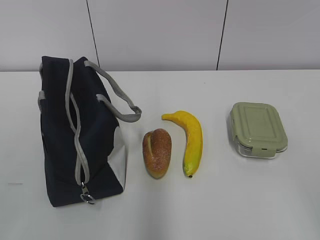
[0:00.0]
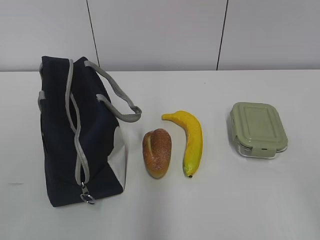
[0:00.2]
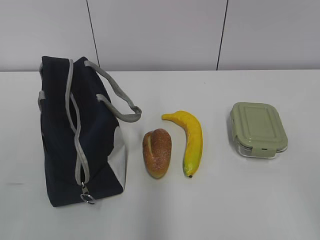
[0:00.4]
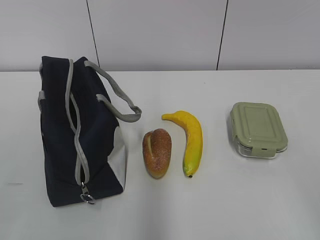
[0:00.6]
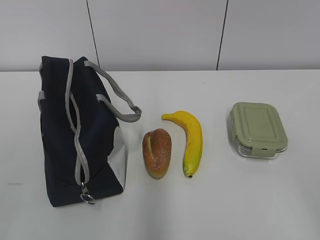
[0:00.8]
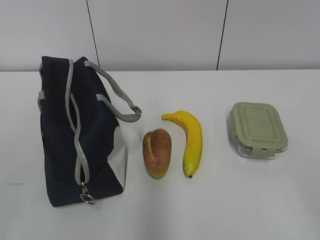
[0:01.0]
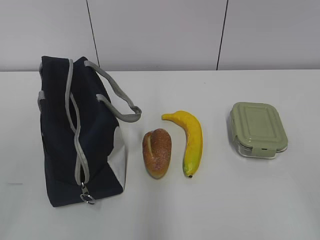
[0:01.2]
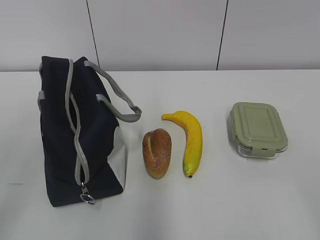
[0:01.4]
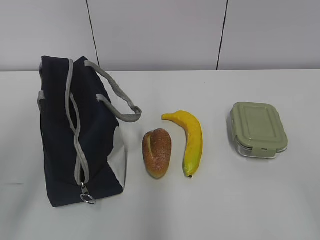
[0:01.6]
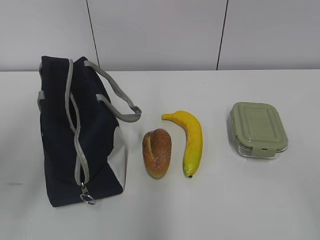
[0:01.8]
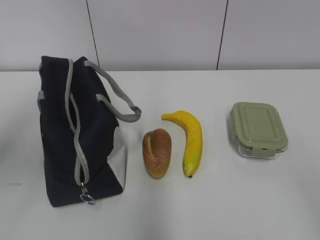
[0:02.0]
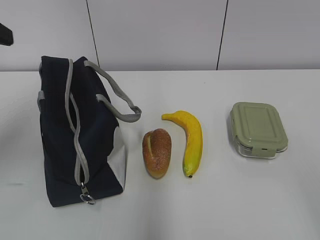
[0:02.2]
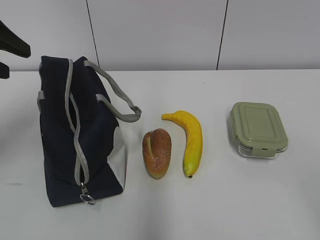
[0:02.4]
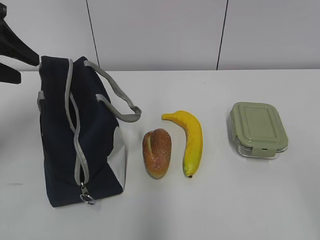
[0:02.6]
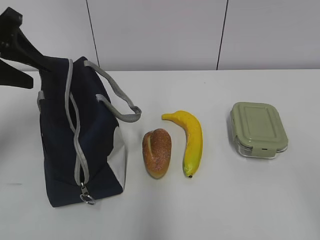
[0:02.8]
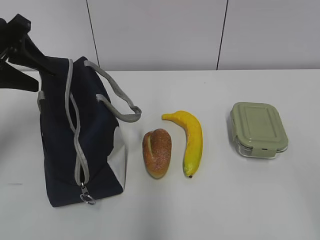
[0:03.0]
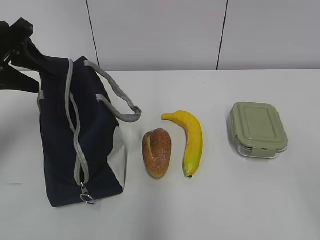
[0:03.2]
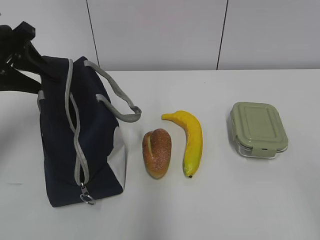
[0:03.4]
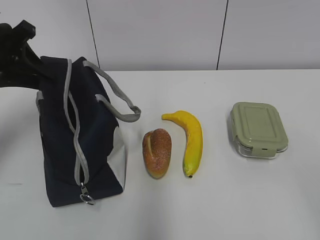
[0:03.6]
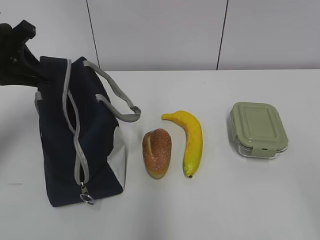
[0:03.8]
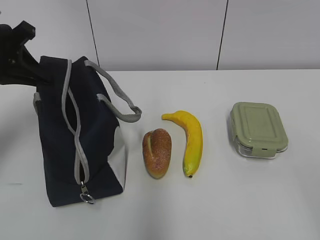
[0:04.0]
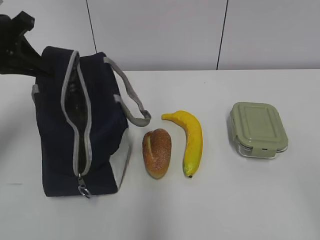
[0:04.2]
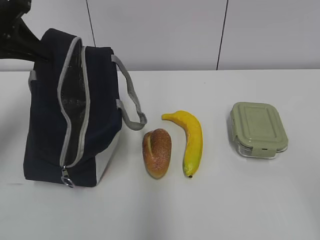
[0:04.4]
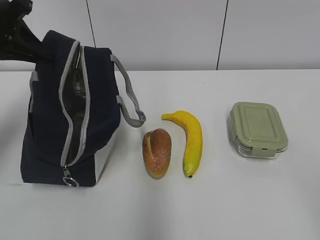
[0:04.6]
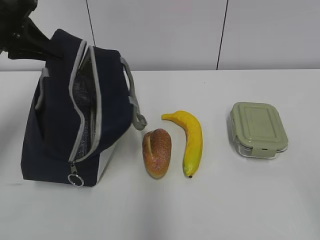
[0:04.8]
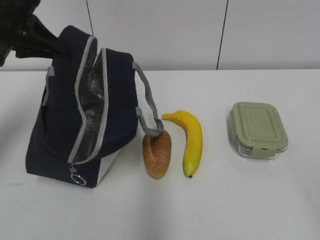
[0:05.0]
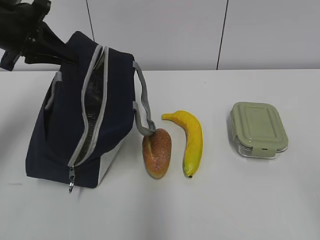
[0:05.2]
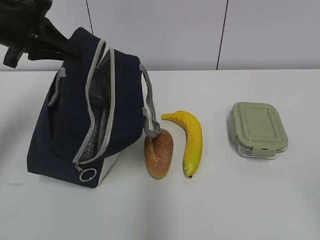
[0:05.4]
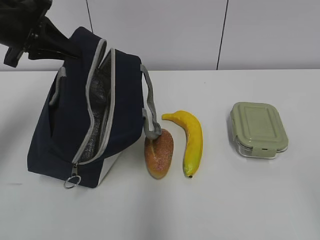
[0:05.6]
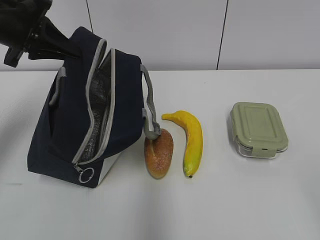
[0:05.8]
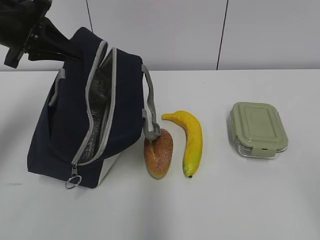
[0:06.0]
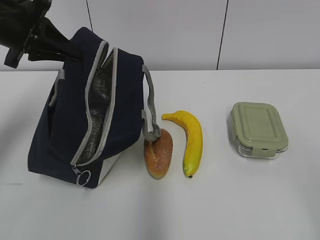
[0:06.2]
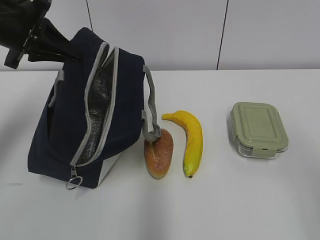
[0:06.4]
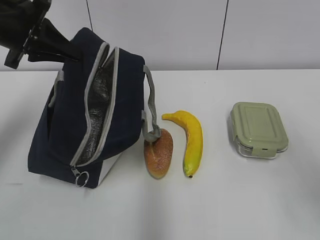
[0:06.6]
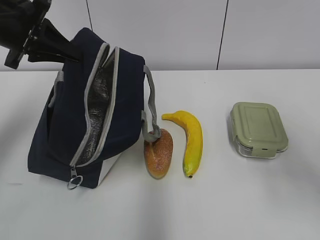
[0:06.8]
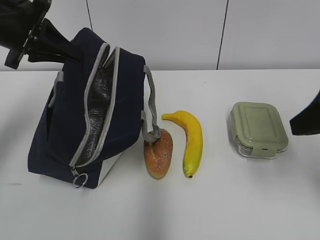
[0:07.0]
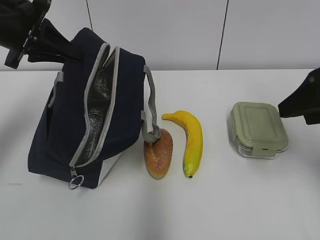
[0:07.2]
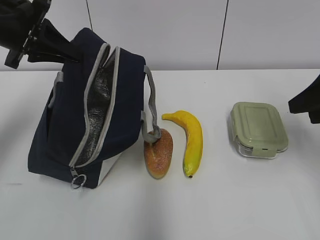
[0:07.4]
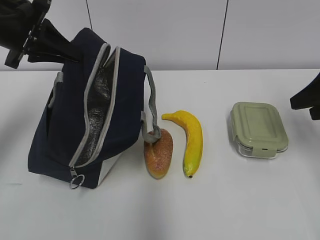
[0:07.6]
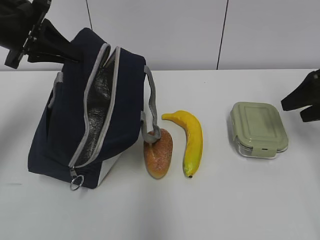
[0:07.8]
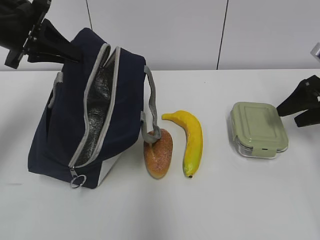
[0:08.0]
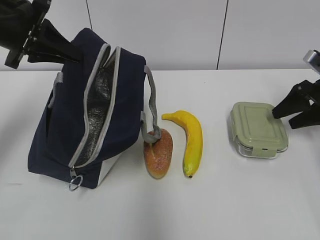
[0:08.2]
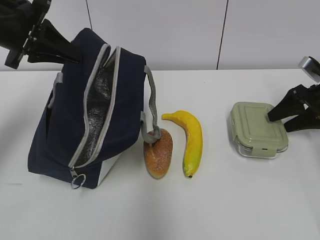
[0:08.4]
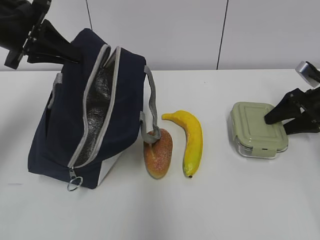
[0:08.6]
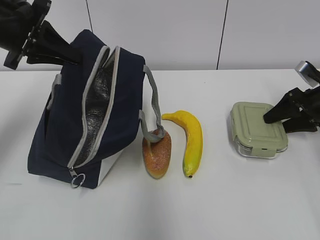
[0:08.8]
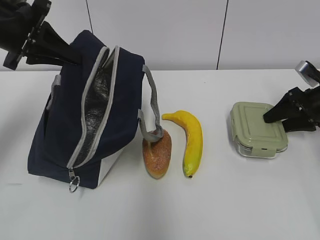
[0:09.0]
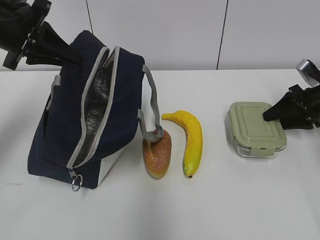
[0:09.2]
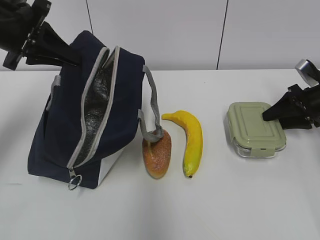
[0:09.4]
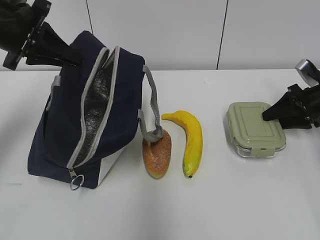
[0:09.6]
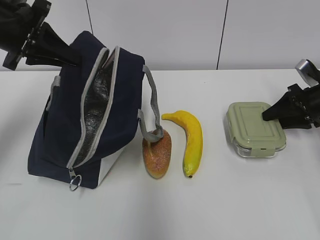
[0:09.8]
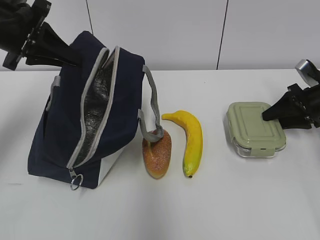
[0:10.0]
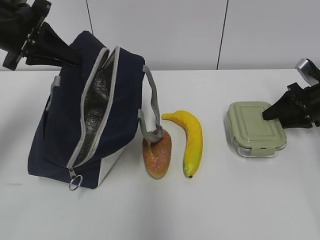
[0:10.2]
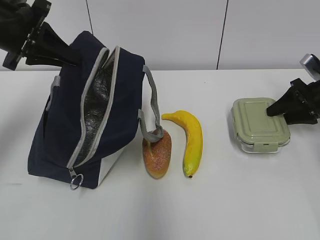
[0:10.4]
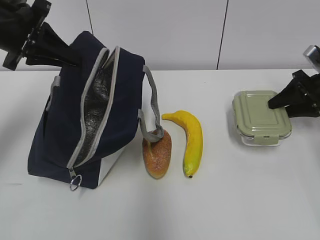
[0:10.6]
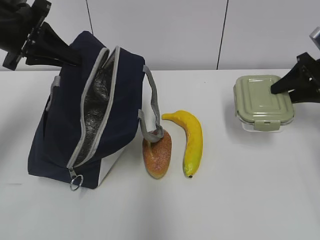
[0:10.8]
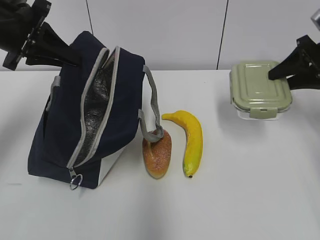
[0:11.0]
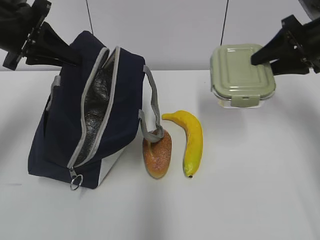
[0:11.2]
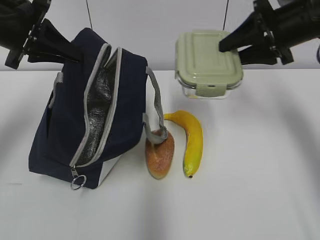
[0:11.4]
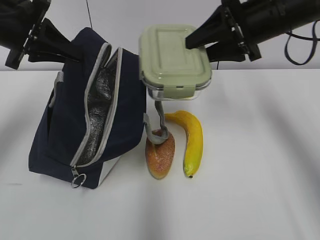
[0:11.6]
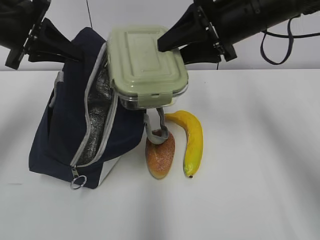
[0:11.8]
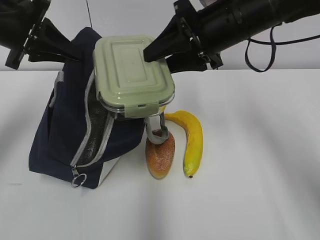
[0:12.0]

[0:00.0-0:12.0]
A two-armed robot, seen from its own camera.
0:01.6 to 0:03.0: The left gripper heads forward, covering roughly 25 cm.
0:03.0 to 0:04.4: The left gripper closes its fingers.
0:04.4 to 0:06.0: The grippers stay close to where they were, moving slightly.
0:06.0 to 0:07.6: The right gripper heads forward, covering about 30 cm.
0:07.6 to 0:09.0: The right gripper moves downward and forward, approximately 15 cm.
0:09.0 to 0:10.4: Both grippers stay about where they are.
0:10.4 to 0:12.0: The right gripper shifts some 30 cm to the left and upward.

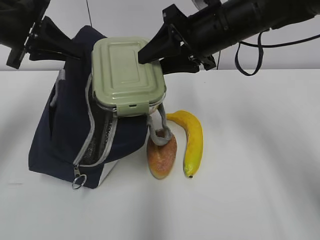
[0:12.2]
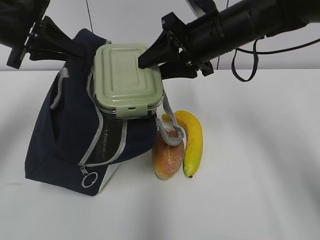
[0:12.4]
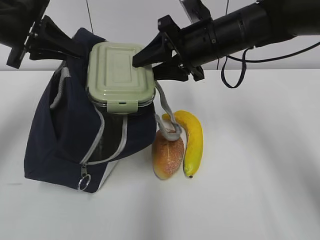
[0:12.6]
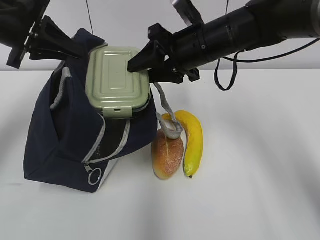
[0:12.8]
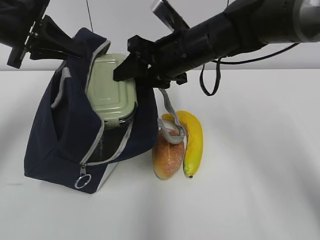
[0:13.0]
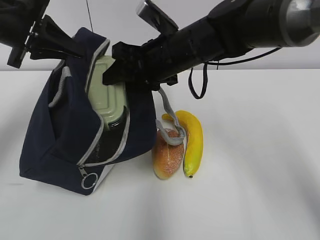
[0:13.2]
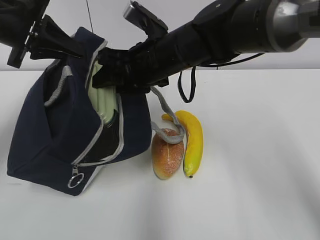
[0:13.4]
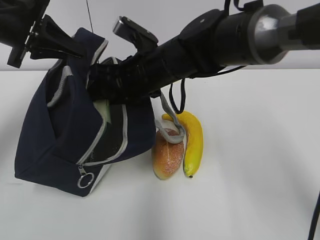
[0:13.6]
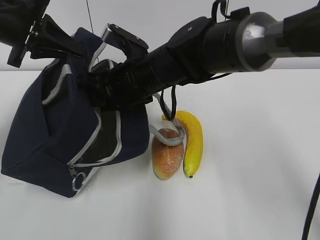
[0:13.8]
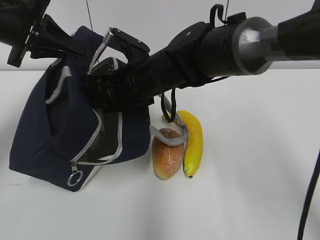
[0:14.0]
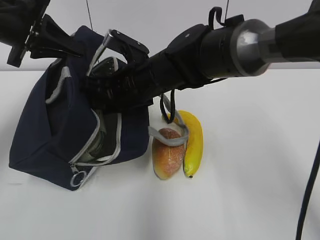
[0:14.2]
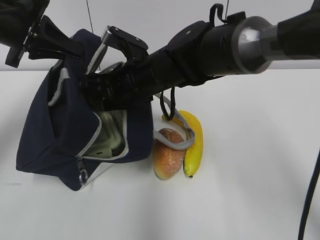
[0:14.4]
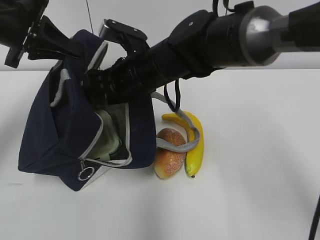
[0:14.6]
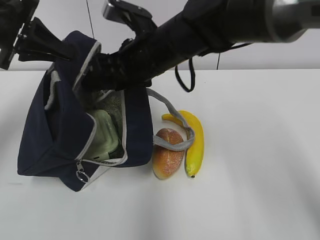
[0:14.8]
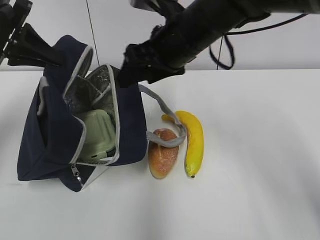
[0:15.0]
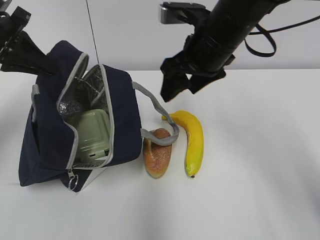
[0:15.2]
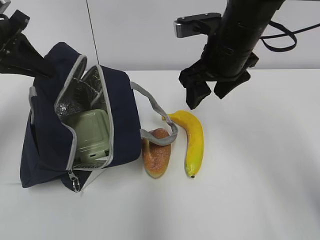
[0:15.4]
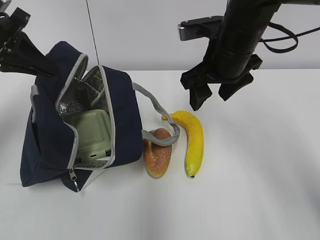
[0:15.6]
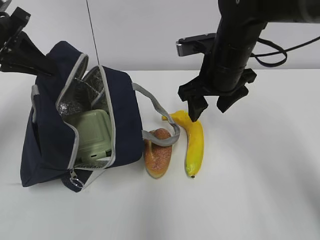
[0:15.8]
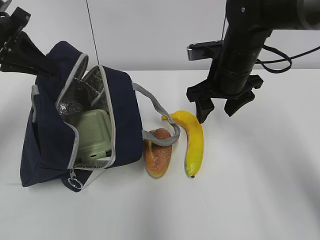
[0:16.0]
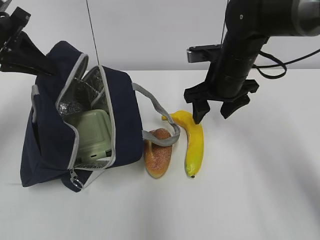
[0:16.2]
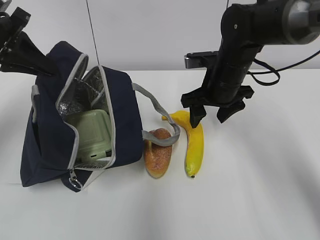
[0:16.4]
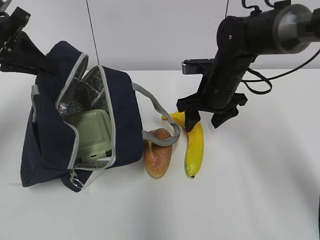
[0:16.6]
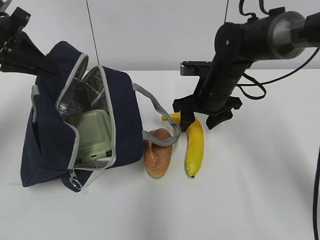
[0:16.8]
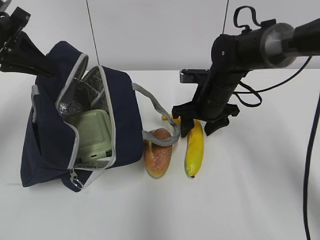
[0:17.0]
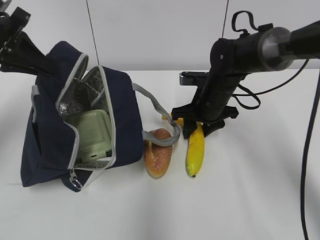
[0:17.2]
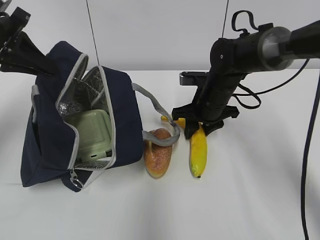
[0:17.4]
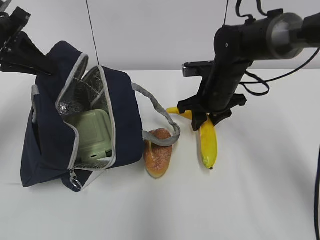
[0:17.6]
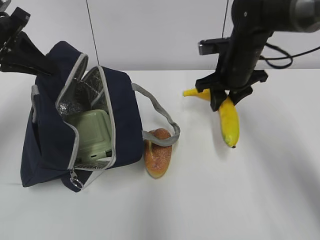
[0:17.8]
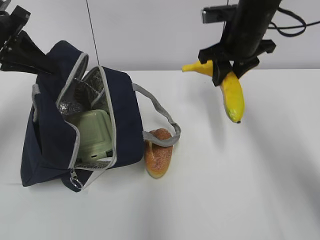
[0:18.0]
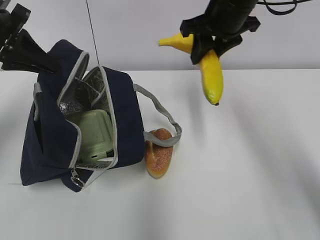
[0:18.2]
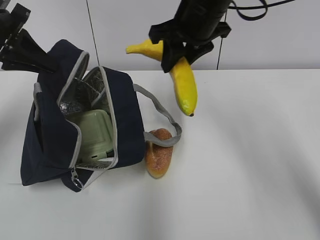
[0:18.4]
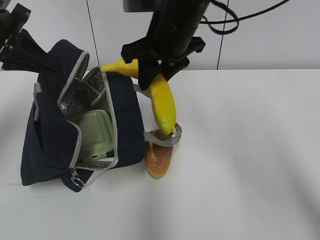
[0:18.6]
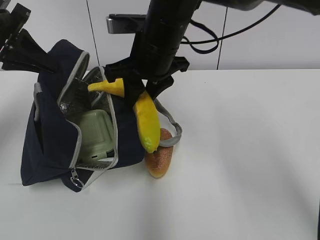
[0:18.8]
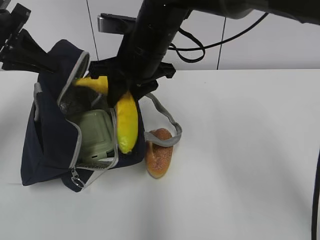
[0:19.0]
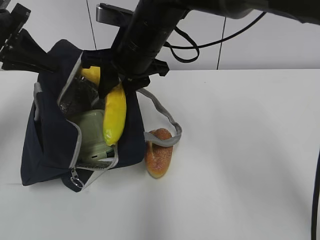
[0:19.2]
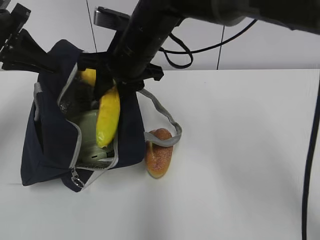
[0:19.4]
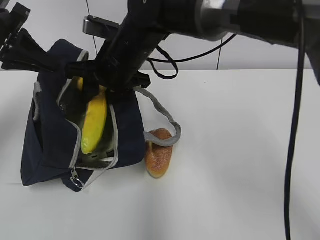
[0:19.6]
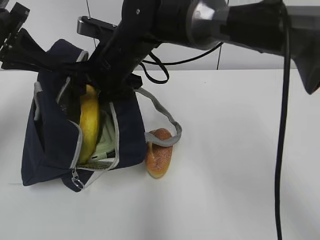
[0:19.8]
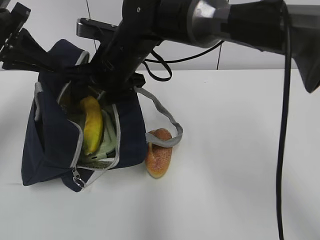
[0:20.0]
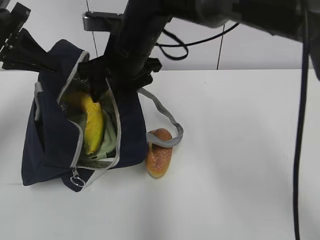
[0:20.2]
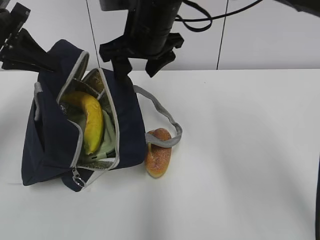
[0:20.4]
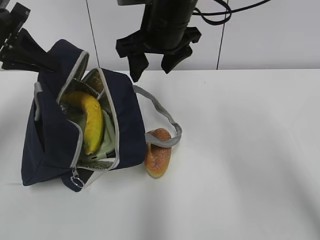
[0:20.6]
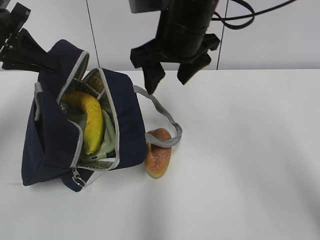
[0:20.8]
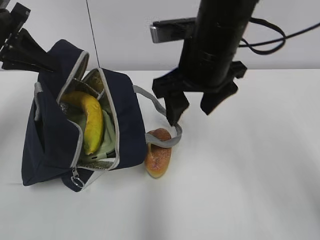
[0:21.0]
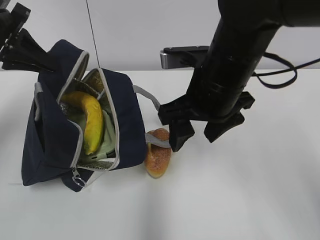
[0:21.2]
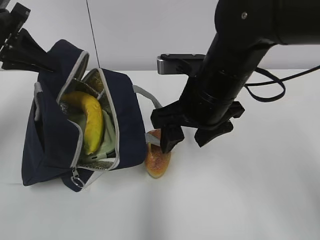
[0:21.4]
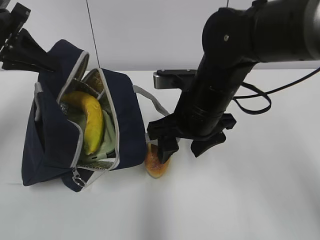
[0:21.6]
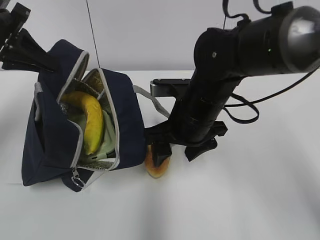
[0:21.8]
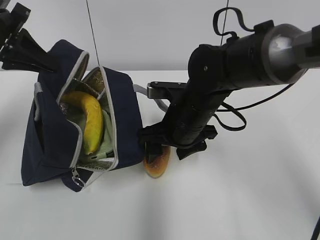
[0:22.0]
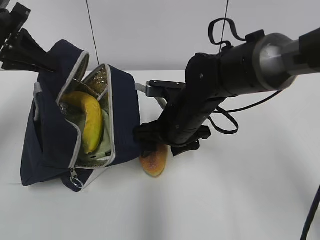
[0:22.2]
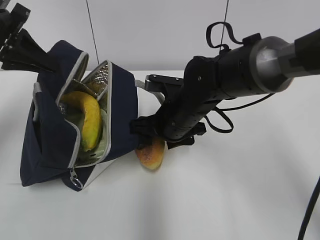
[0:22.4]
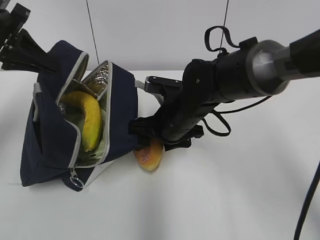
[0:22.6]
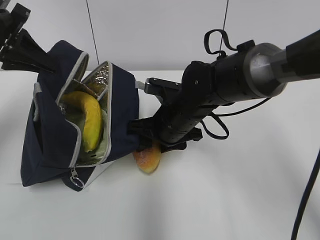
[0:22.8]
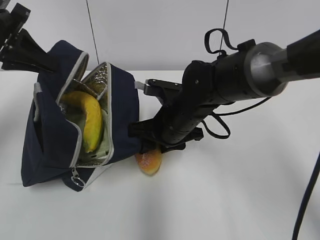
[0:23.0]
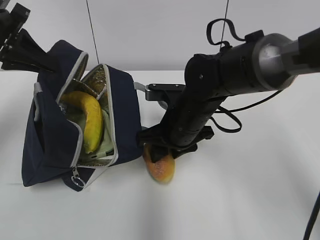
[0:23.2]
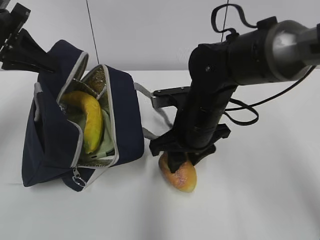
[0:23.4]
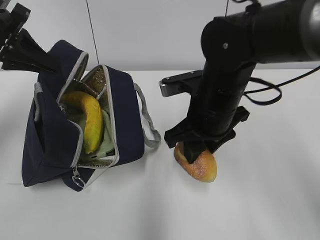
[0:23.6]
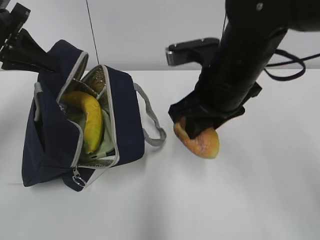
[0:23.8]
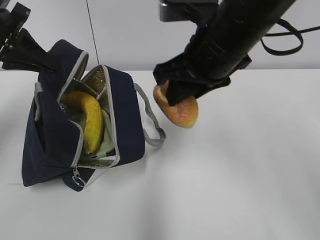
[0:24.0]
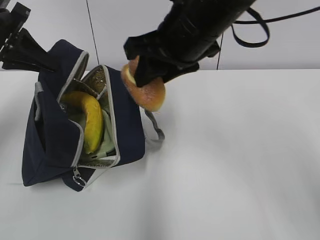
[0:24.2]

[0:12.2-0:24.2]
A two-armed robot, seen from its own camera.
0:12.2 to 0:13.8: The right gripper moves to the left and downward, about 15 cm.
0:13.8 to 0:15.2: The right gripper goes roughly 10 cm to the right and upward.
0:15.2 to 0:16.6: The right gripper goes approximately 10 cm downward.
0:16.6 to 0:18.2: The right gripper heads upward, covering approximately 15 cm, and closes.
0:18.2 to 0:19.8: The right gripper goes about 20 cm to the left.
0:19.8 to 0:21.2: The right gripper moves to the right and backward, roughly 15 cm.
0:21.2 to 0:22.6: The right gripper moves downward and forward, approximately 10 cm.
0:22.6 to 0:24.2: The right gripper is displaced upward by approximately 15 cm, and closes its fingers.
